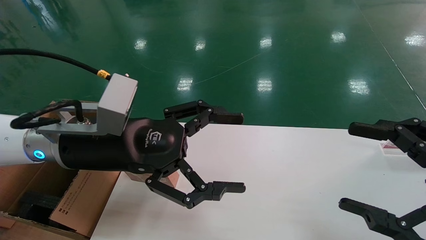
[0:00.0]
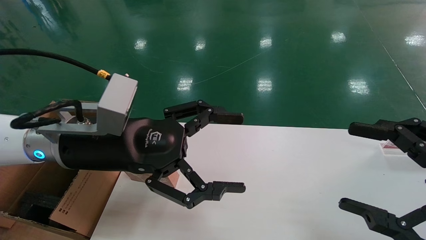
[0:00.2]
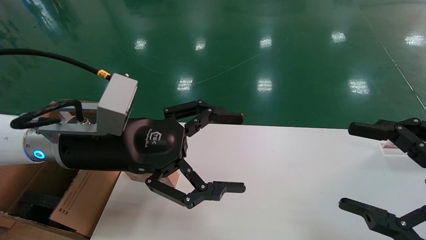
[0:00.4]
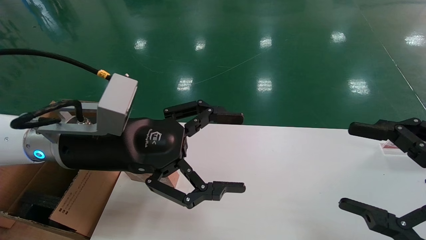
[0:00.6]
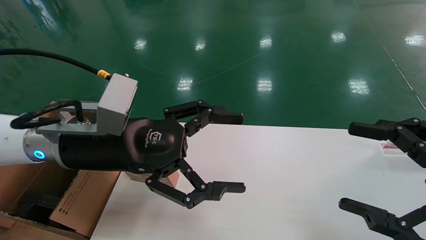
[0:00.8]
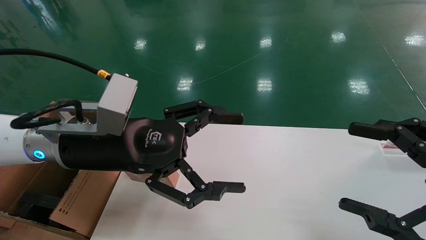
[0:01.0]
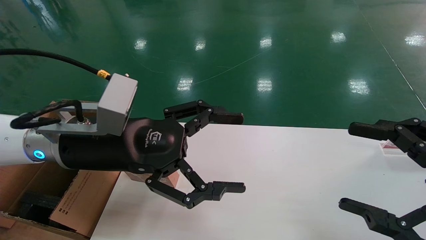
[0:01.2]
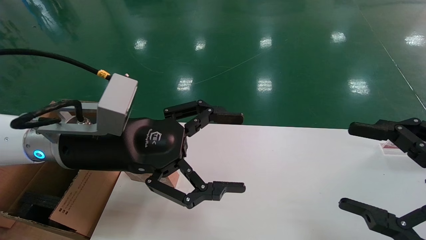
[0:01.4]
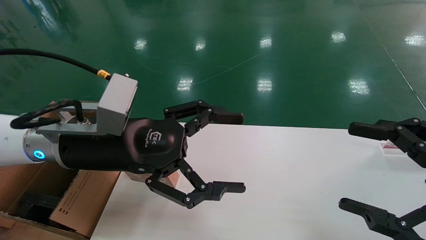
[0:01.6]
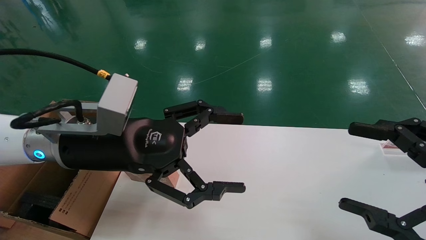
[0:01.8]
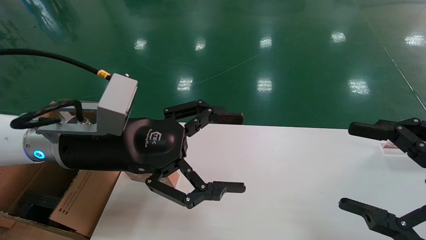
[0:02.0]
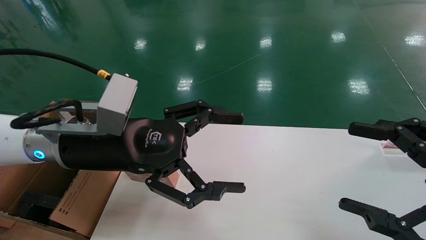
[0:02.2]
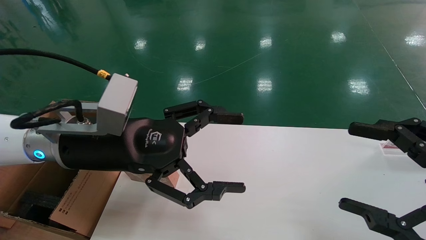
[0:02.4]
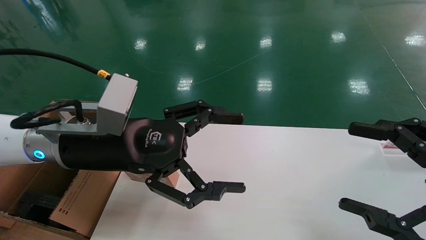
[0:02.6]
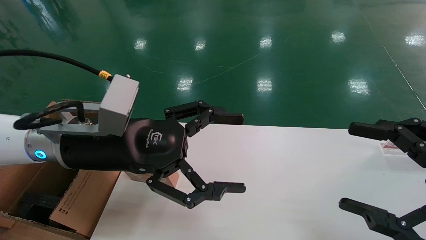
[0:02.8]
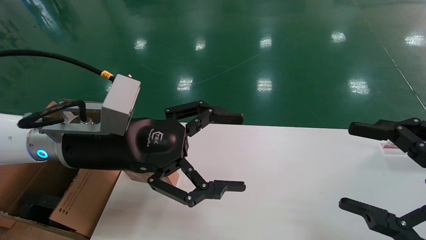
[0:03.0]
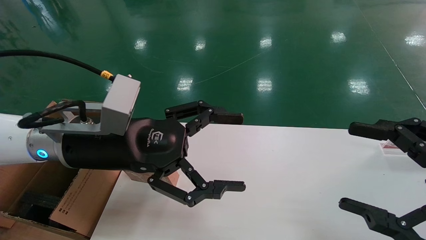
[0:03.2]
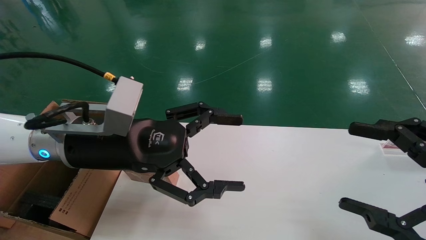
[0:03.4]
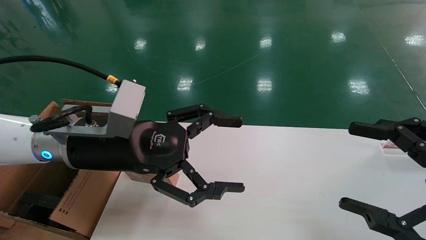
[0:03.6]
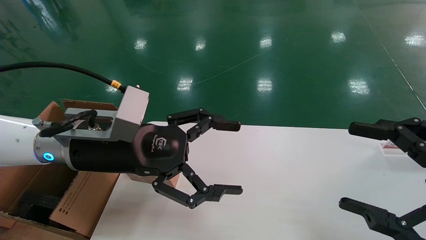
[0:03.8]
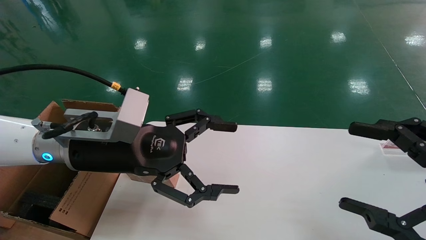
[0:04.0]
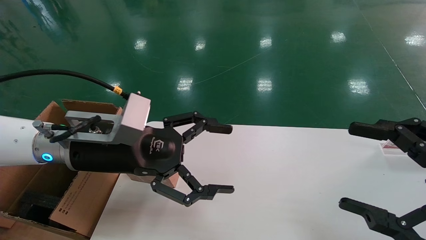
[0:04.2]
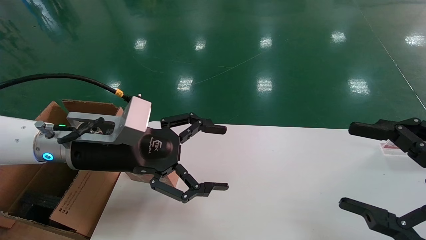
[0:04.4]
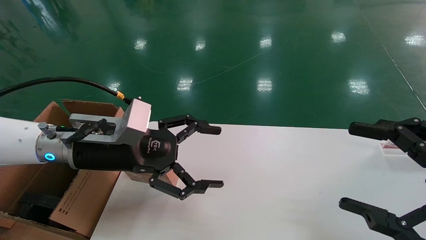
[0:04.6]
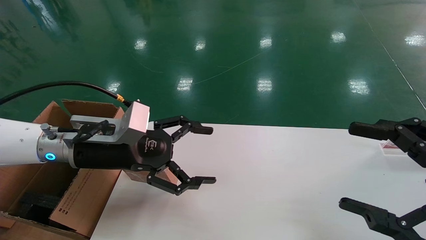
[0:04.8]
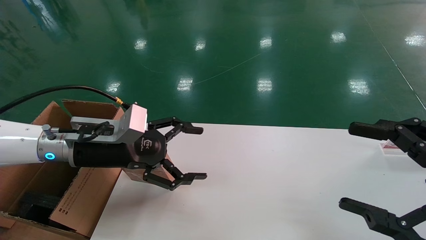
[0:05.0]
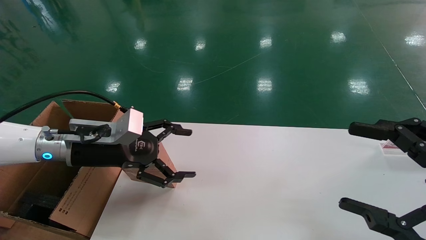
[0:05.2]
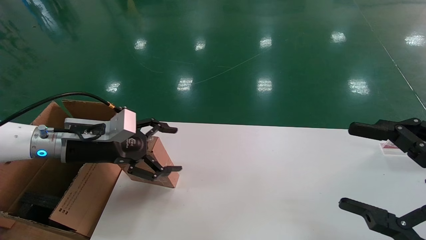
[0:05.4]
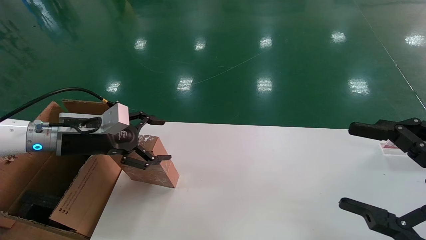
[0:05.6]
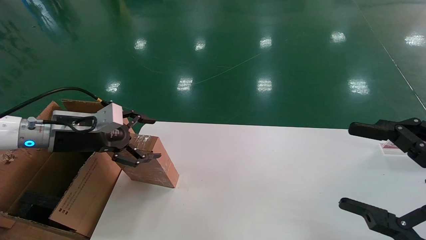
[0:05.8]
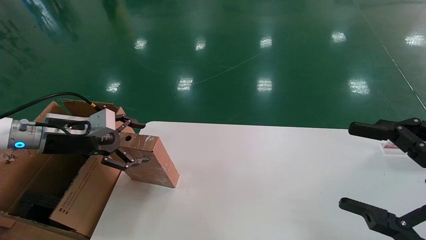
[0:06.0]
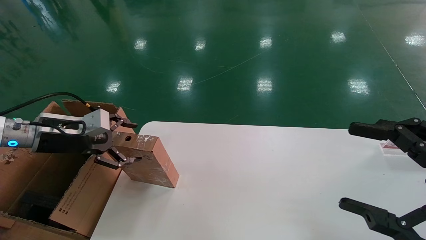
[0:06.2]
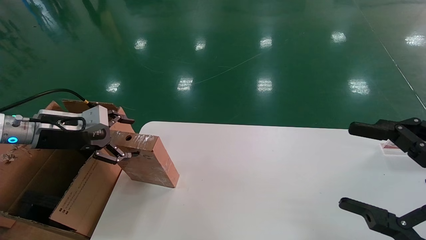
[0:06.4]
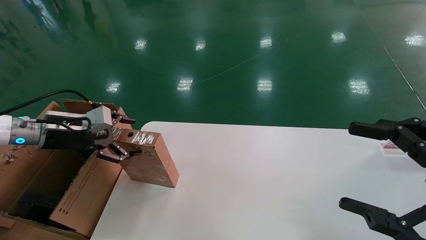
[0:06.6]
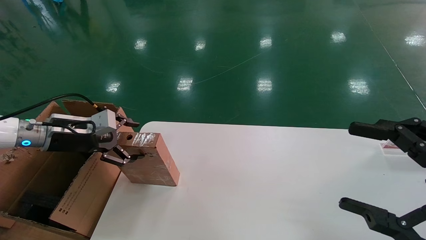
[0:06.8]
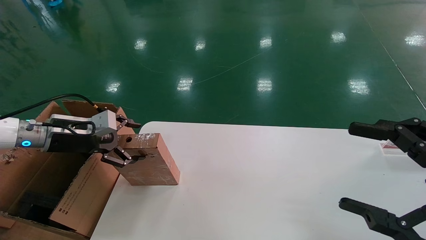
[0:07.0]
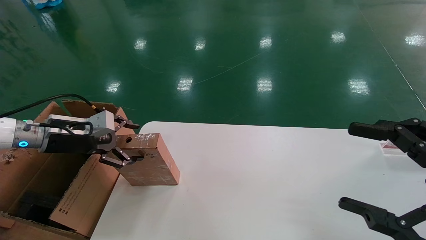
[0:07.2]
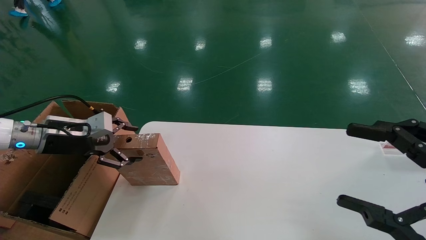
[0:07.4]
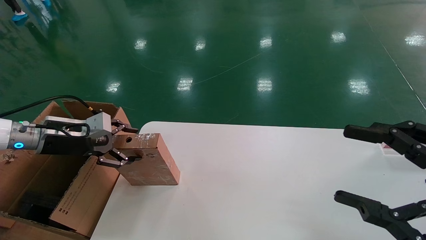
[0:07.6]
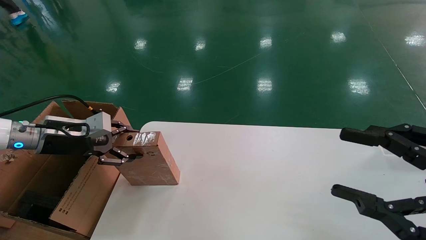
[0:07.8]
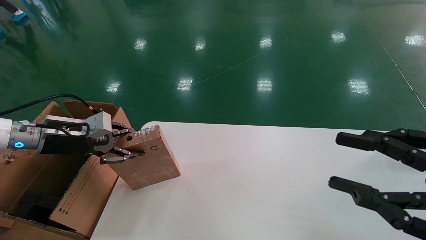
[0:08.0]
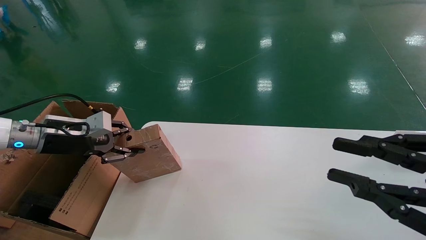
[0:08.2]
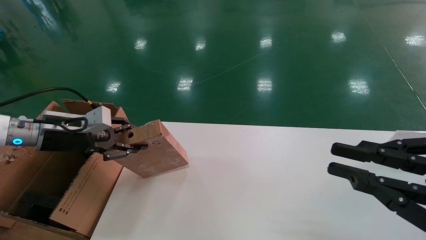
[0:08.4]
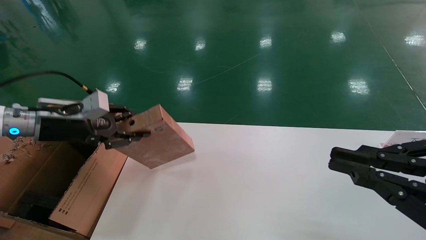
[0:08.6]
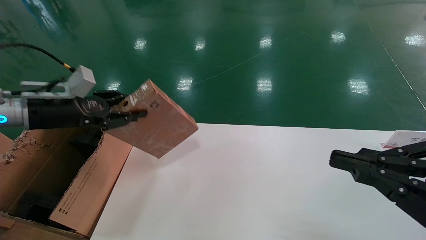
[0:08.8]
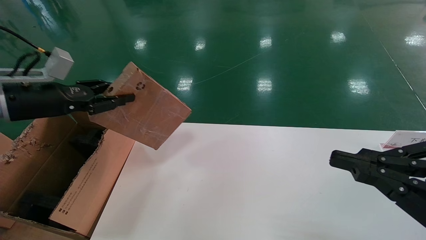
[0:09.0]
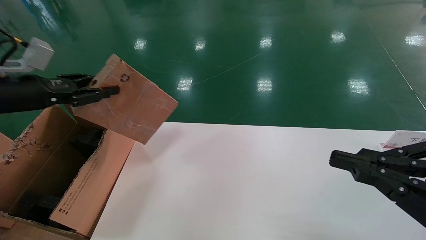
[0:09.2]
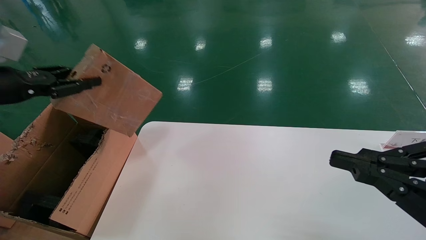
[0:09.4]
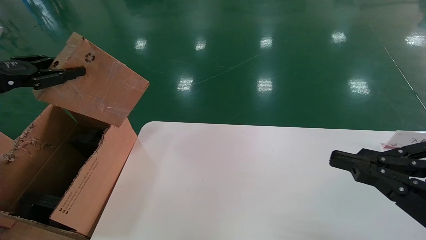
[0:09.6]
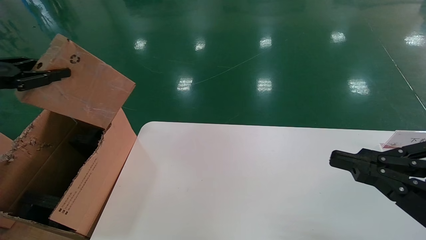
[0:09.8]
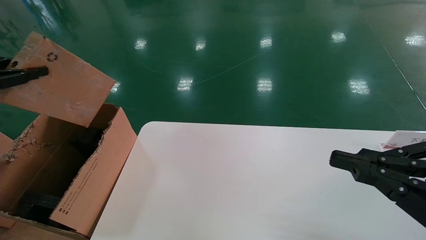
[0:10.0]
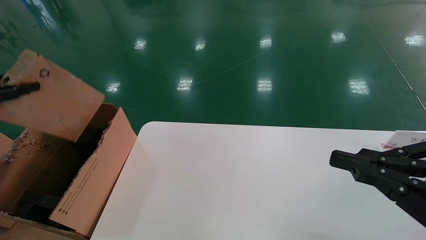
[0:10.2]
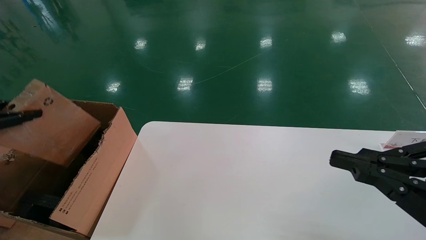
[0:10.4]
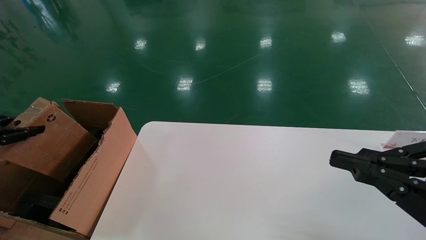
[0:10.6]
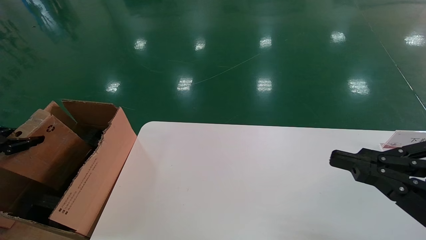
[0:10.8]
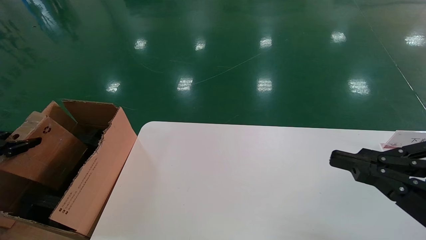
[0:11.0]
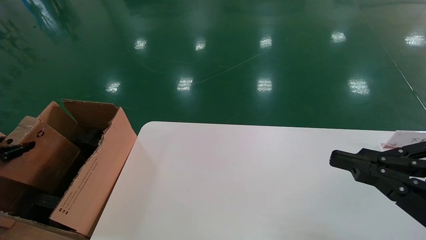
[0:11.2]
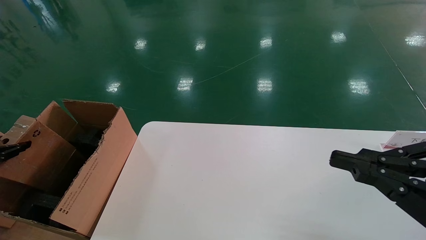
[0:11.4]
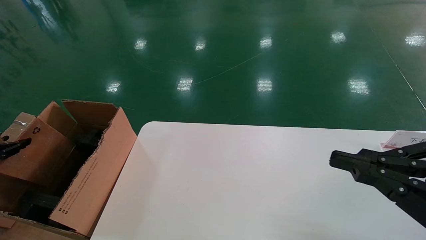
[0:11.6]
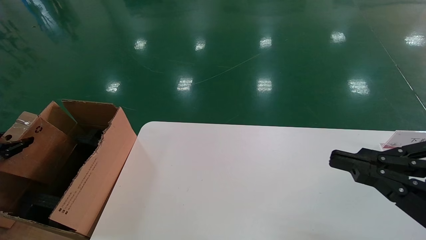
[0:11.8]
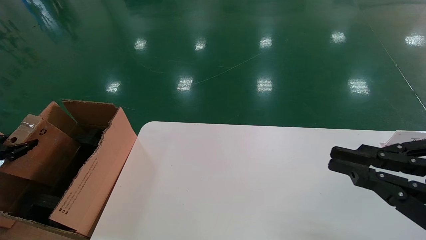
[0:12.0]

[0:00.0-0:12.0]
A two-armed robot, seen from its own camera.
Task of the whole recording: put the box on the table into the big box.
Step, 0:04.2 to 0:08.2: Pick up the mouse and the power cord paper box.
0:00.0 to 0:03.0: Both grippers stay about where they are.
0:03.0 to 0:04.4: The grippers make only small movements.
0:04.4 to 0:06.0: The left gripper travels to the left by approximately 15 cm.
0:06.0 to 0:07.6: The grippers stay close to where they were, moving slightly.
0:07.6 to 0:09.0: The right gripper closes, while the left gripper moves upward, roughly 10 cm, and closes its fingers.
0:09.0 to 0:10.4: The left gripper goes about 15 cm to the left and backward.
0:10.4 to 0:12.0: The left gripper heads downward, covering some 10 cm.

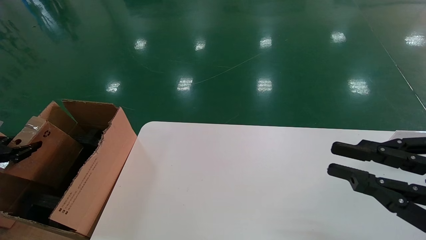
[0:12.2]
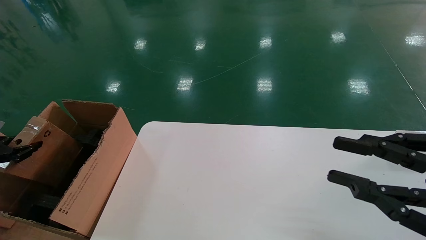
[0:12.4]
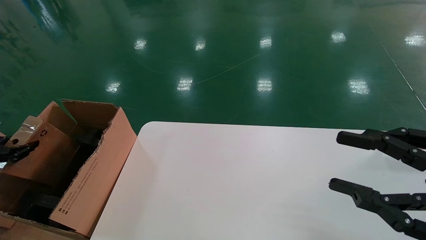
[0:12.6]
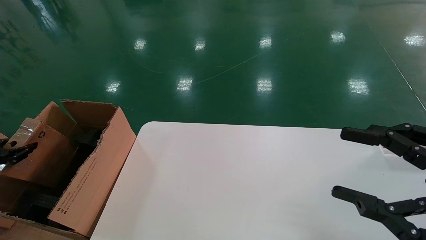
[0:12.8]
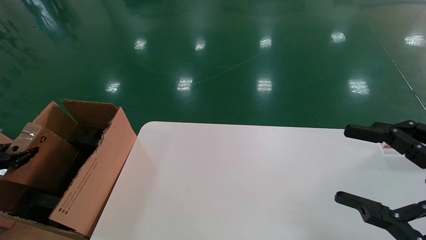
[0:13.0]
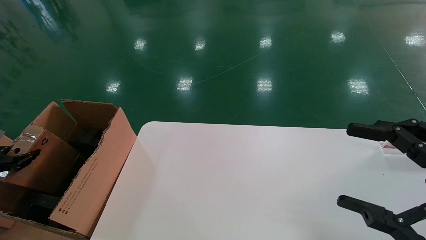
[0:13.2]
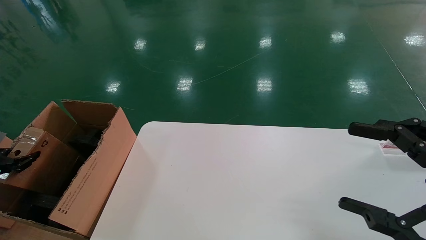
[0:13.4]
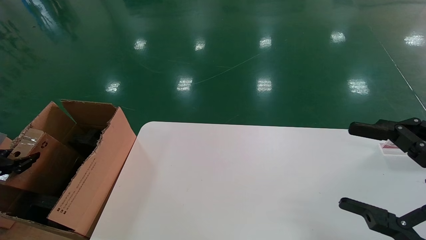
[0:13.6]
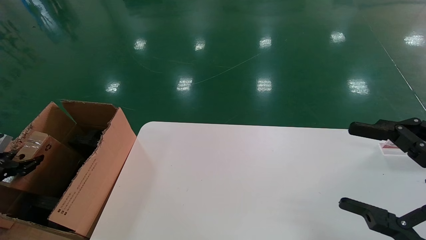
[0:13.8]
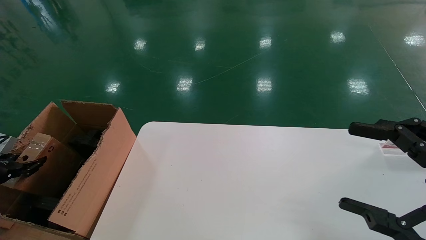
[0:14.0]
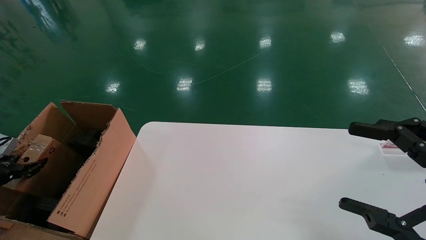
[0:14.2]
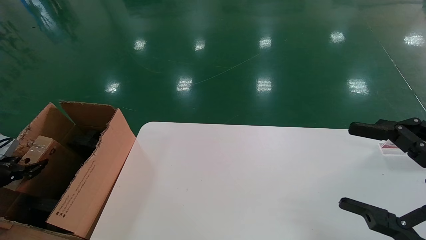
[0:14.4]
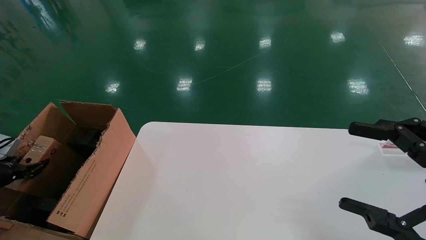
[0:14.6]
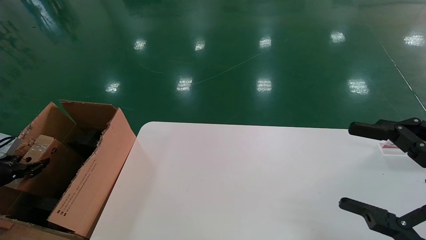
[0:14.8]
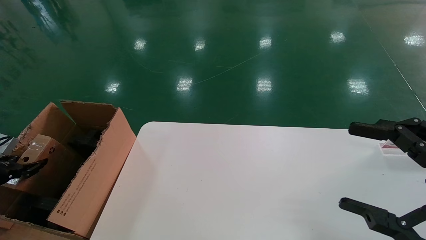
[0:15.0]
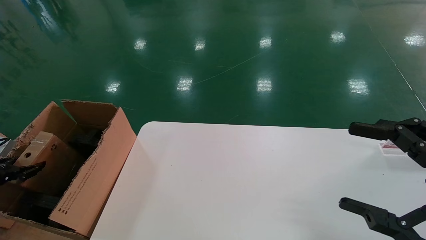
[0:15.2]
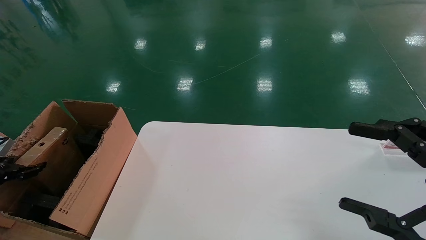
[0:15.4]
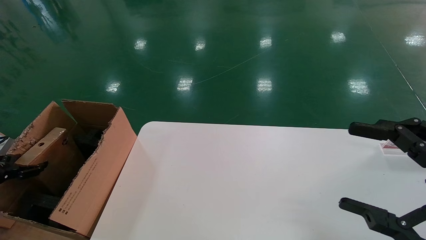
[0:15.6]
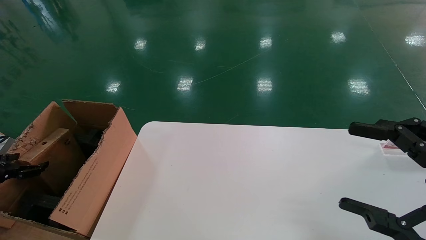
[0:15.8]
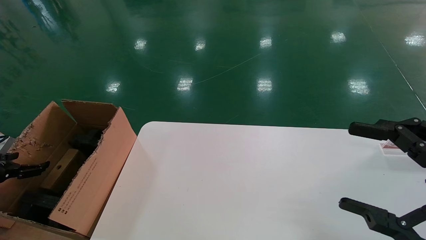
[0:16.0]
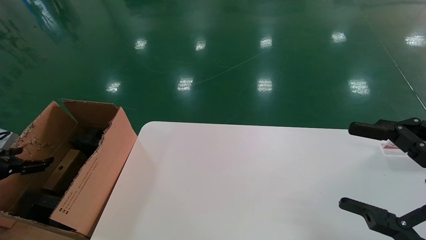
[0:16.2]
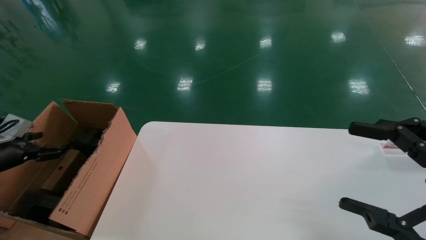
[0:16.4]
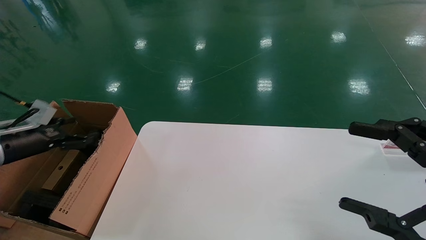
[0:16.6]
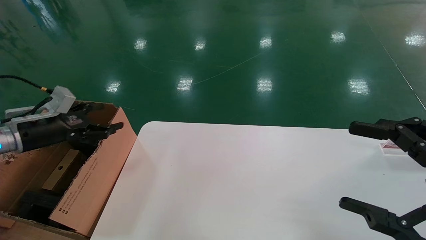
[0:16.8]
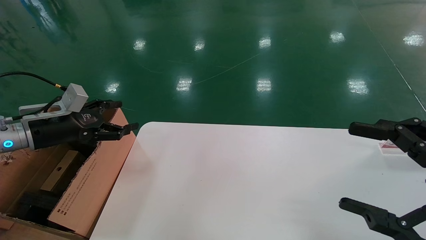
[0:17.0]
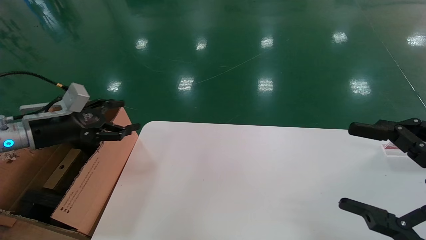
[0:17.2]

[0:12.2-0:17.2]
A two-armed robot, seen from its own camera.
Task of the whole recording: put the box on the table into the big box.
Step, 0:12.2 to 0:15.6: Place the mouse and the power cord paper box into the container.
0:12.2 to 0:13.8: The right gripper opens up; the left gripper shifts some 5 cm downward.
0:13.8 to 0:15.6: The left gripper opens its fingers.
0:15.6 to 0:17.2: The left gripper shifts about 25 cm to the right, upward and forward, and opens its fingers.
